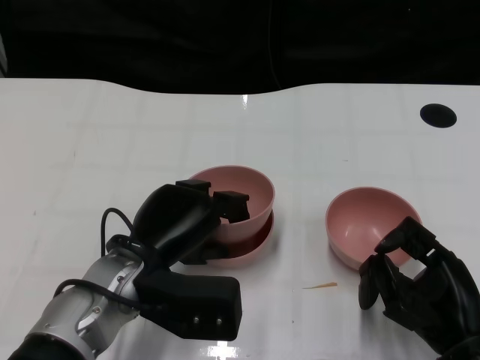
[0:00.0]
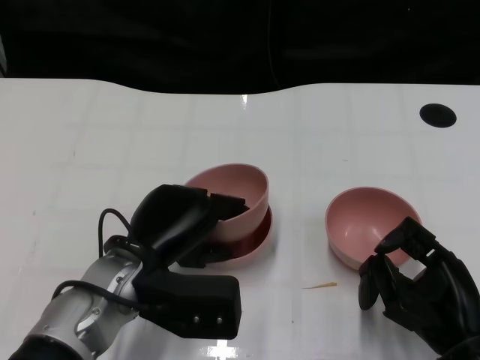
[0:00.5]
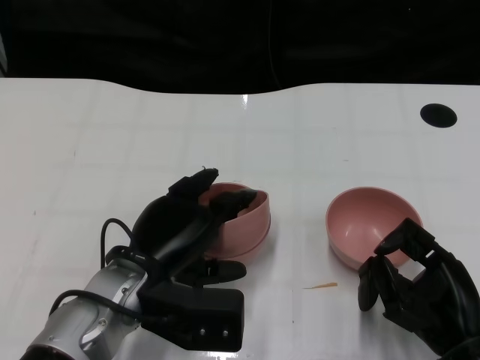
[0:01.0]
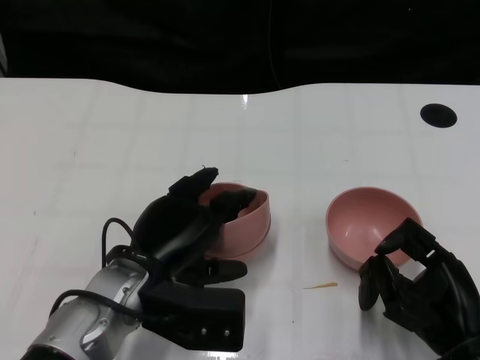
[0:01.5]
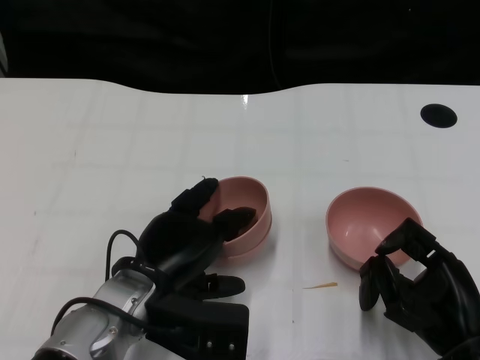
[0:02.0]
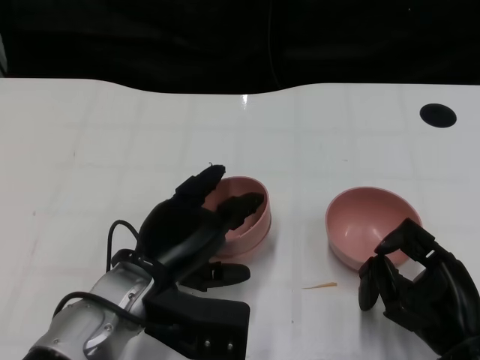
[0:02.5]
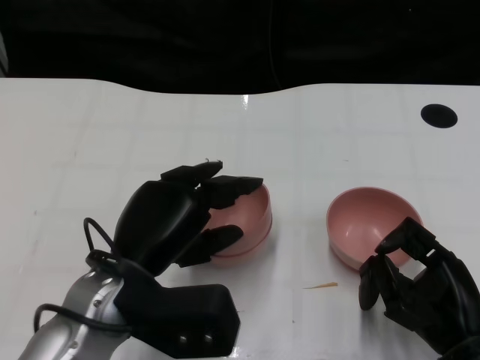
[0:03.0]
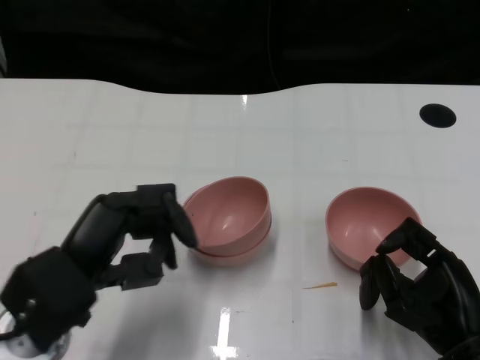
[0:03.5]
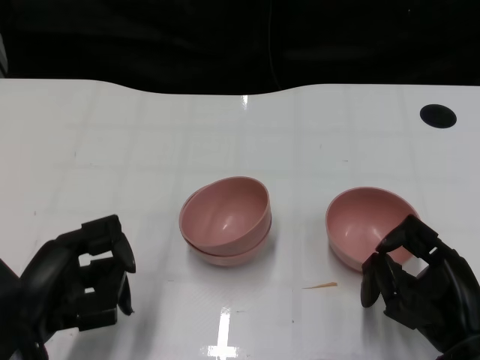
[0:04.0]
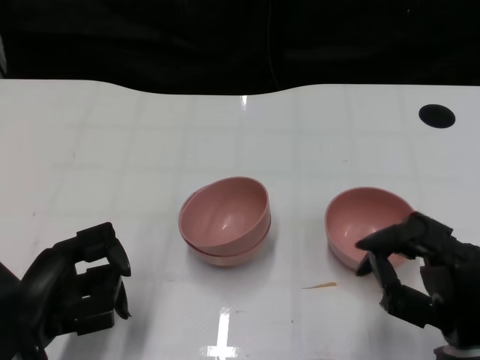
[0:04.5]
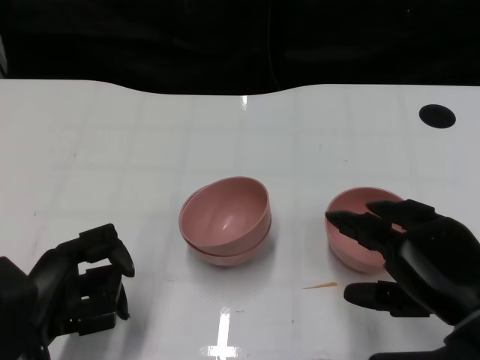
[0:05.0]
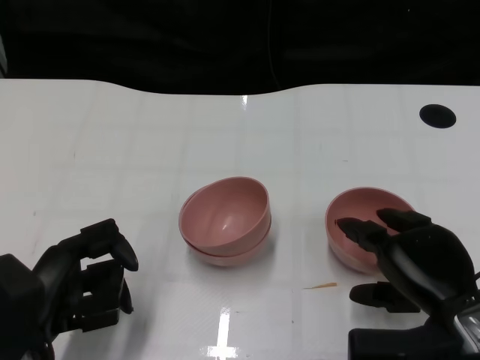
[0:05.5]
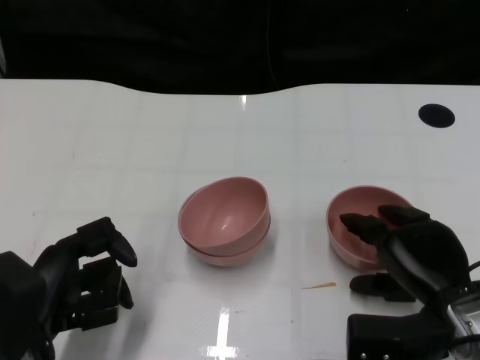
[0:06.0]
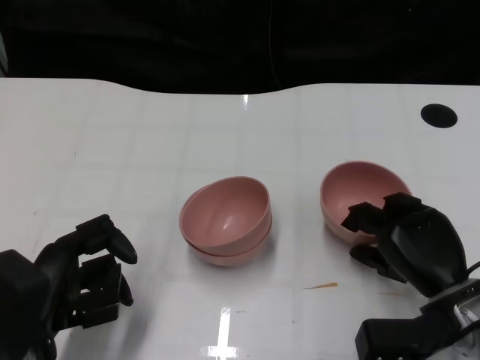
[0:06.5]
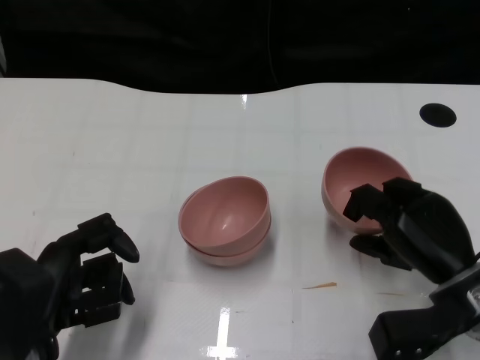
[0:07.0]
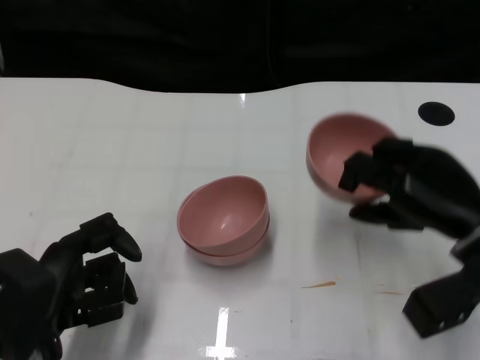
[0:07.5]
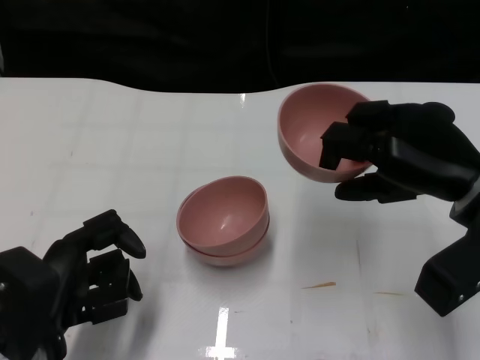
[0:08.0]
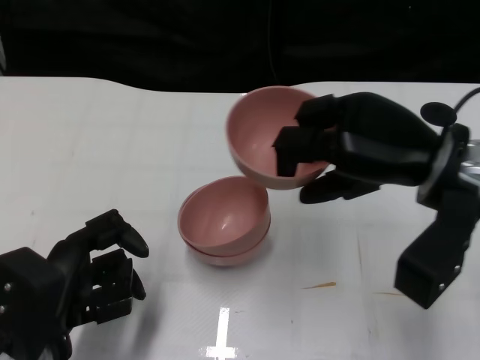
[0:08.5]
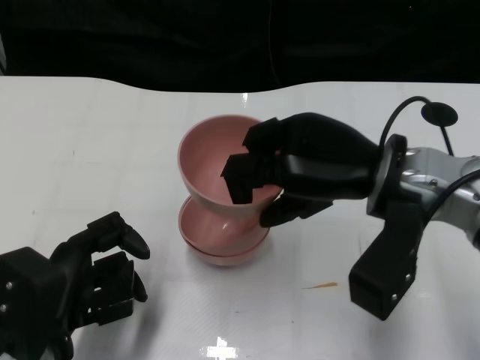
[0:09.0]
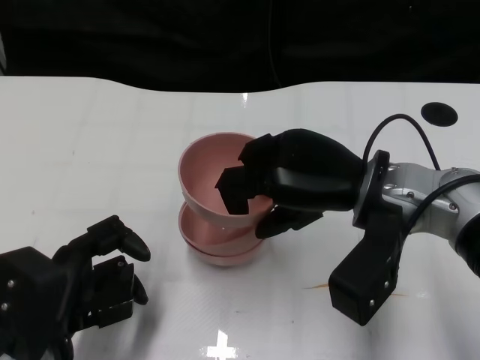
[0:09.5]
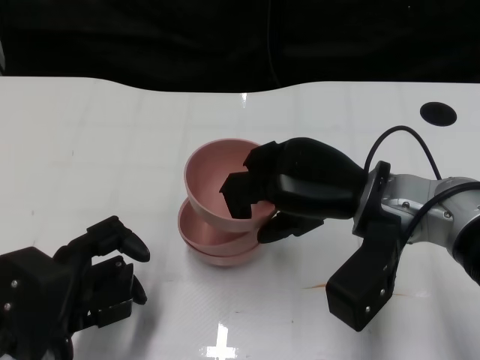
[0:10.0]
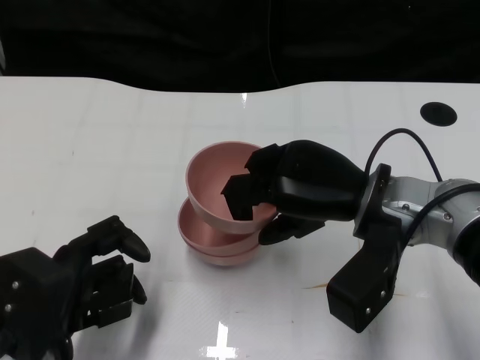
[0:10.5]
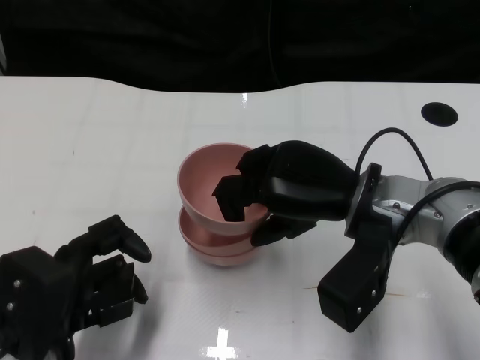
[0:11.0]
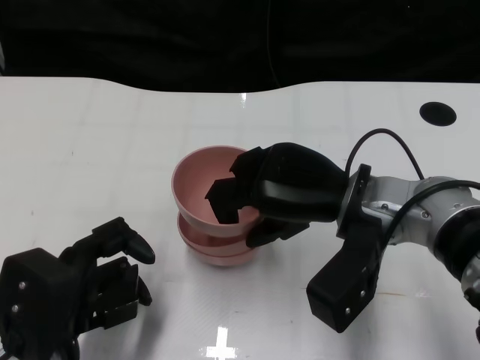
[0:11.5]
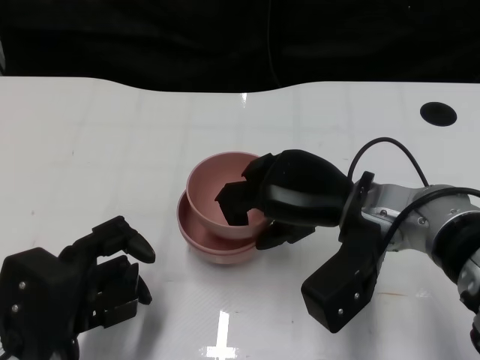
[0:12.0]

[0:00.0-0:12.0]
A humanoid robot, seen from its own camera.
Task of the whole recording: Pick up the bowl on one side of the table and place it on top of the middle bowl, then pick up the bowl on the other side of the table and place it on top of the middle bowls.
Step, 0:00.0 to 0:02.5: Place the bowl on the left onto the bowl in the middle with left gripper.
Step, 0:03.0 to 0:07.0: Grasp the bowl on the right with the right gripper.
0:00.0 to 0:02.0: The hands move only a little.
0:02.0 to 0:04.0: The left hand is displaced to the left and backward by roughly 15 cm.
0:04.0 to 0:06.0: The right hand moves roughly 10 cm upward and comes back.
0:06.0 to 0:08.0: The right hand moves upward and forward, about 10 cm.
0:08.0 to 0:10.0: The right hand travels to the left by approximately 10 cm.
0:10.0 to 0:12.0: The hands move only a little.

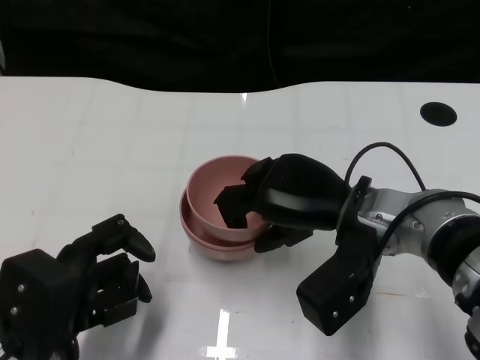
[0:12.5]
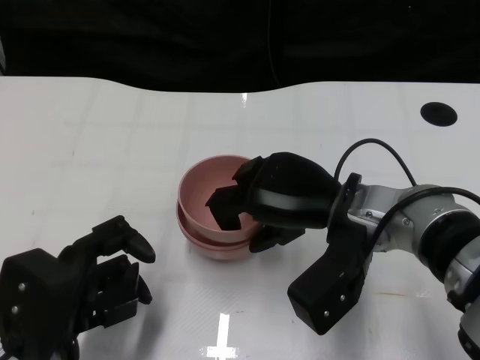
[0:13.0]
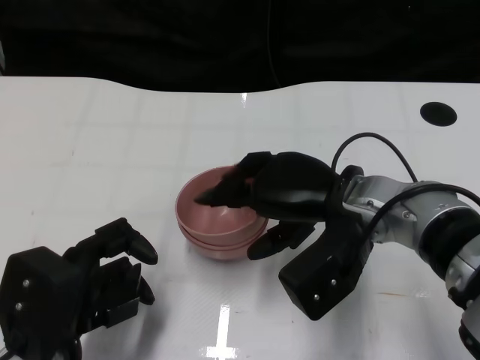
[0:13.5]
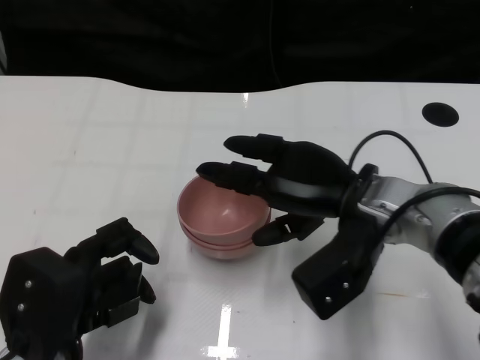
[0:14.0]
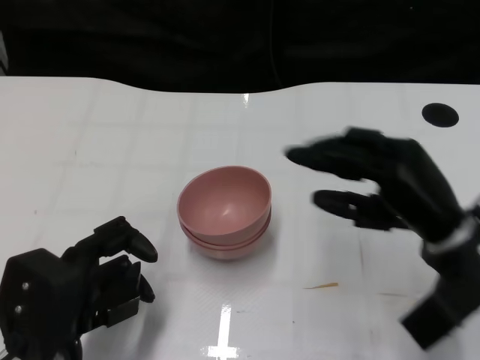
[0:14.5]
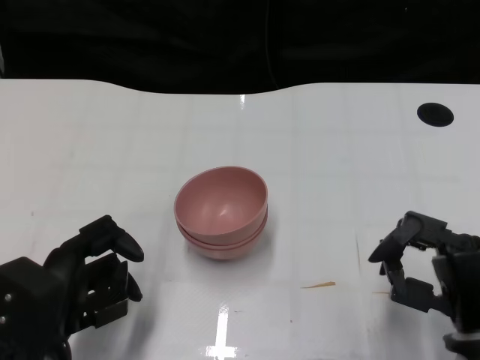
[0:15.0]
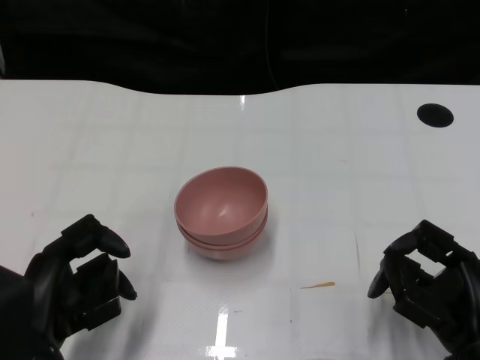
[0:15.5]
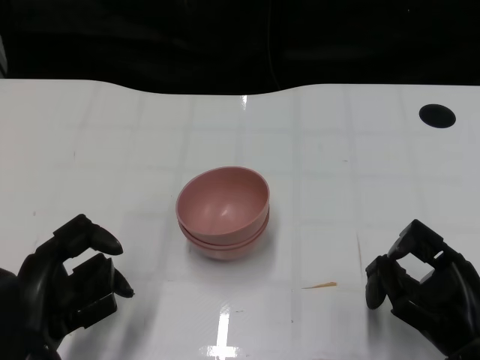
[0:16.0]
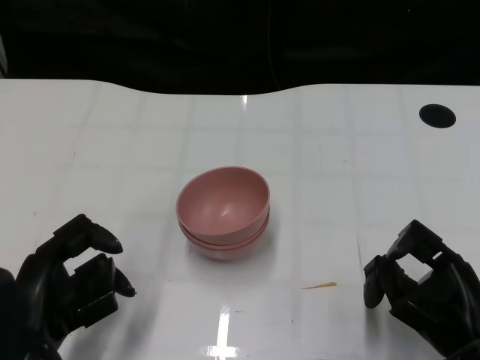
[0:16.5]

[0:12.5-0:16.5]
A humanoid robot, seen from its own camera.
Task of the whole recording: Pick up the bowl on one side of the table and place it on top of the middle bowl, then pick up the bowl on the other side of the table and place it on top of the middle bowls.
0:12.5 to 0:14.5: The right hand goes approximately 10 cm to the right.
0:14.5 to 0:16.5: The right hand goes roughly 10 cm backward and downward.

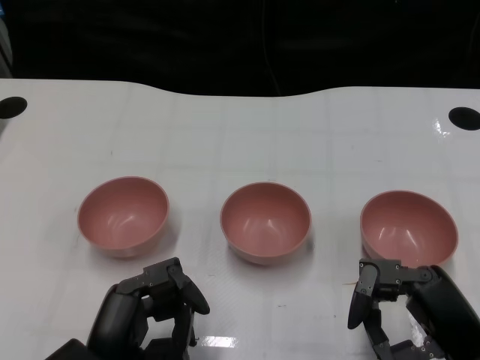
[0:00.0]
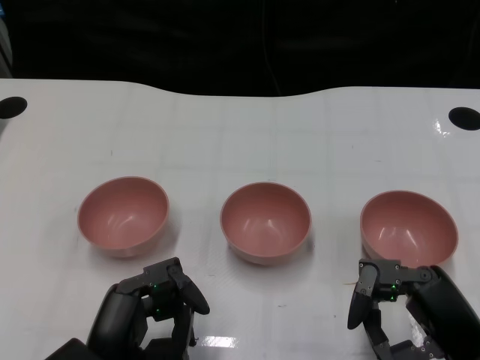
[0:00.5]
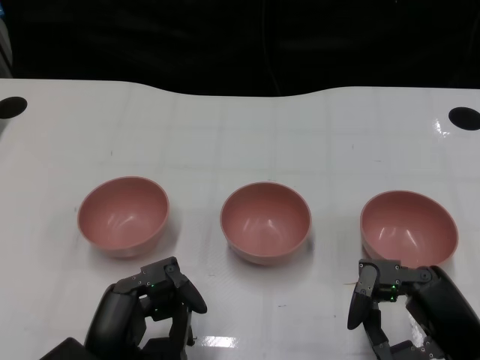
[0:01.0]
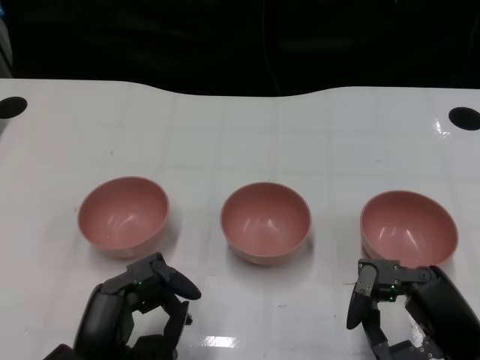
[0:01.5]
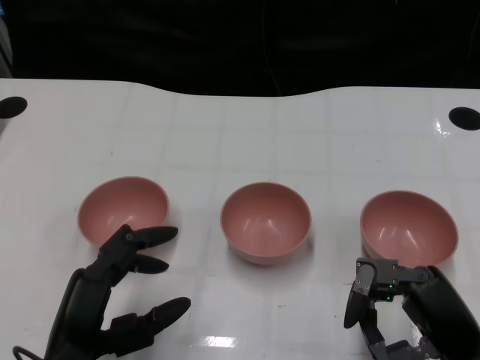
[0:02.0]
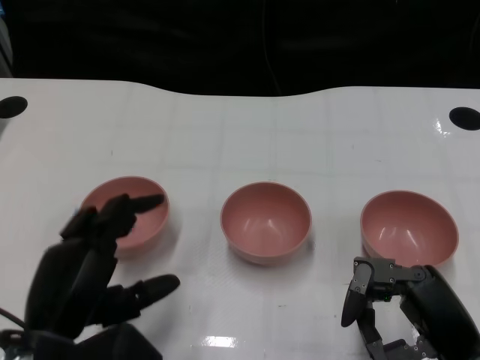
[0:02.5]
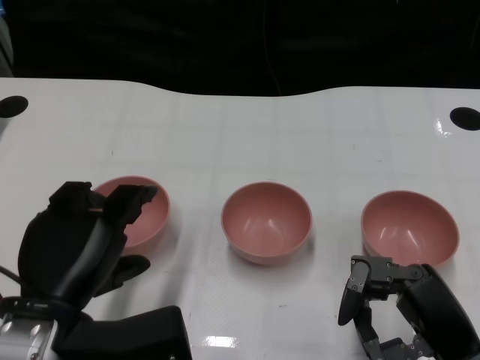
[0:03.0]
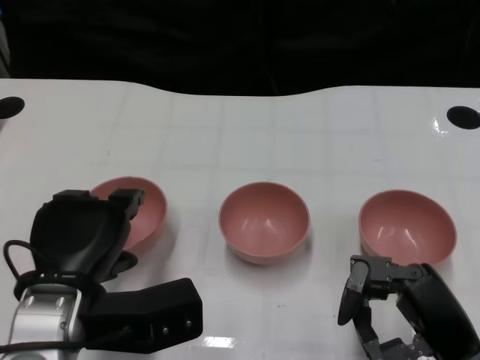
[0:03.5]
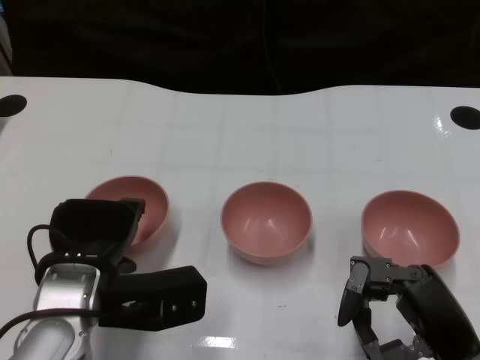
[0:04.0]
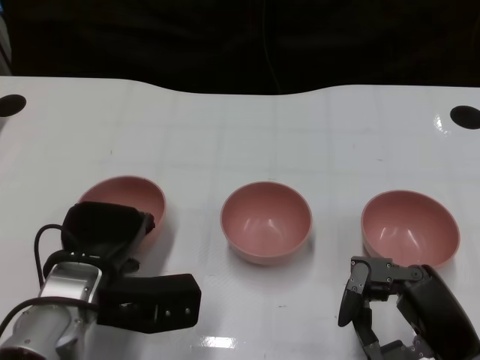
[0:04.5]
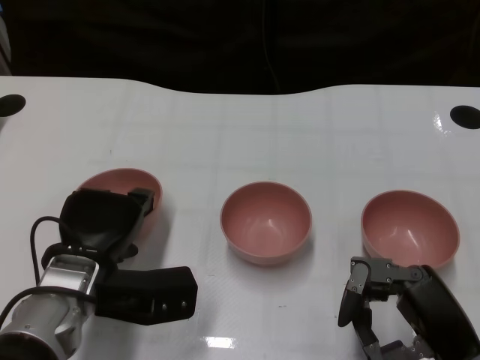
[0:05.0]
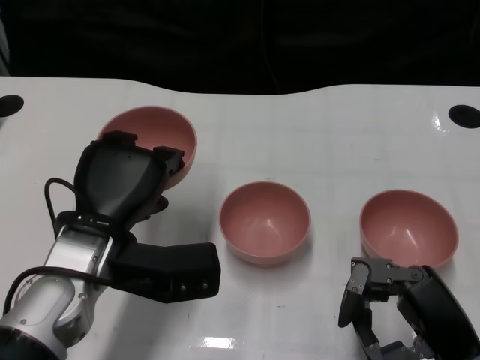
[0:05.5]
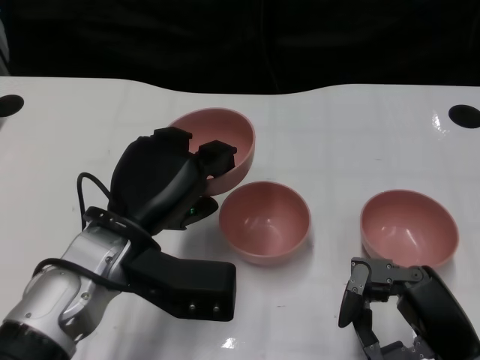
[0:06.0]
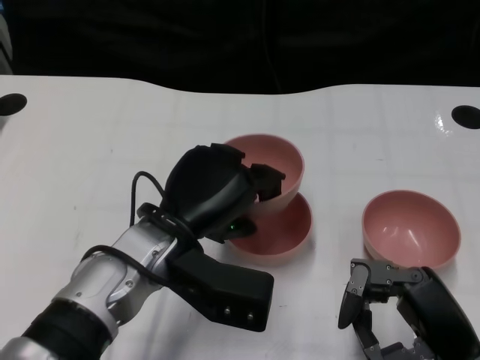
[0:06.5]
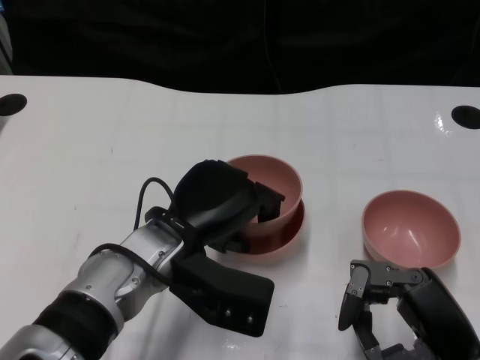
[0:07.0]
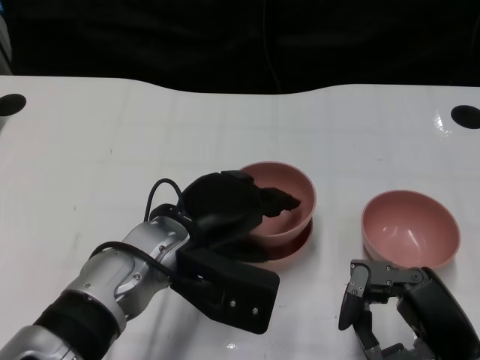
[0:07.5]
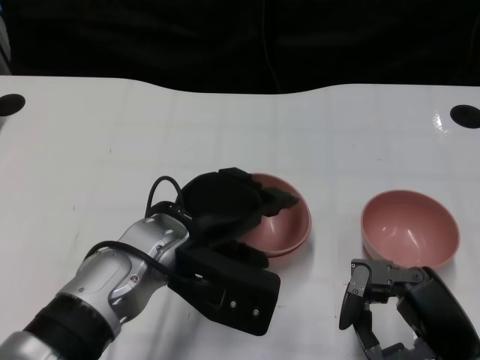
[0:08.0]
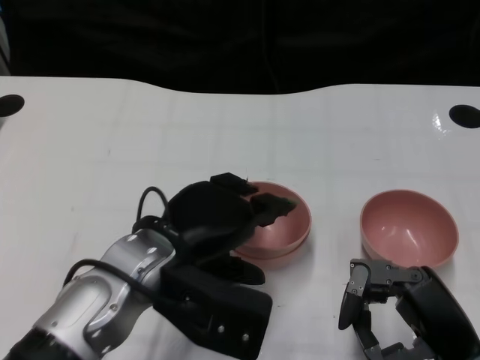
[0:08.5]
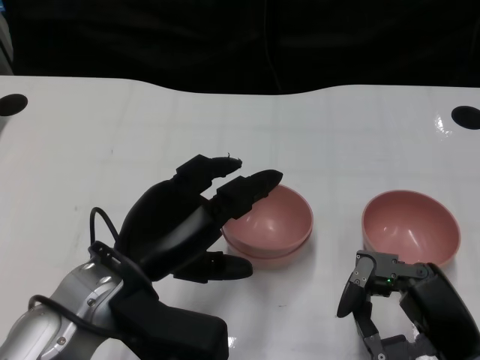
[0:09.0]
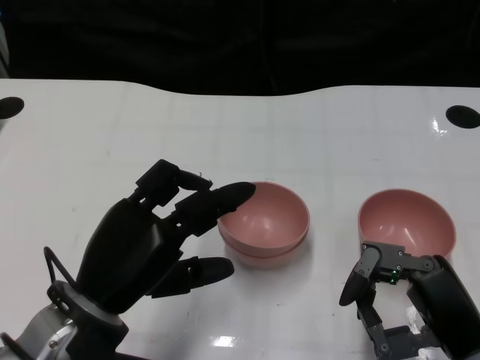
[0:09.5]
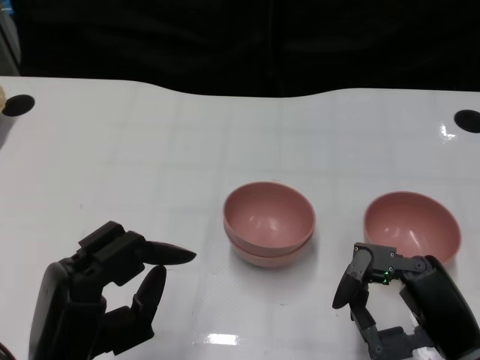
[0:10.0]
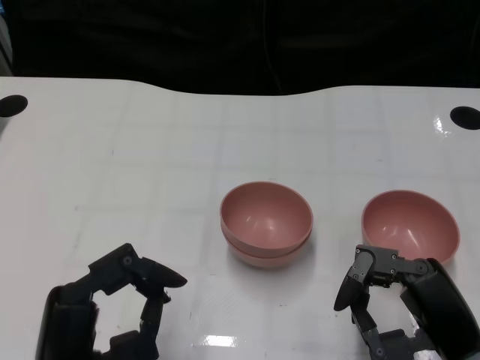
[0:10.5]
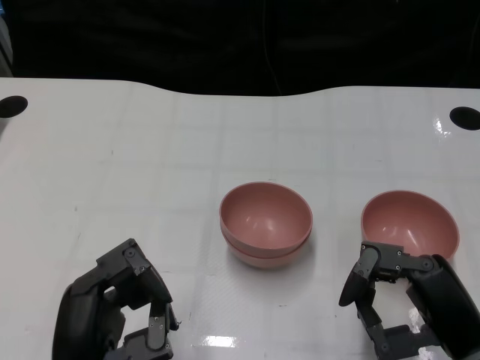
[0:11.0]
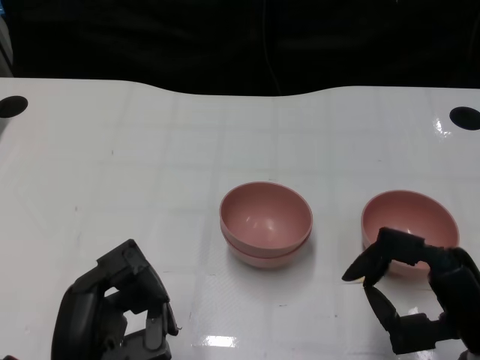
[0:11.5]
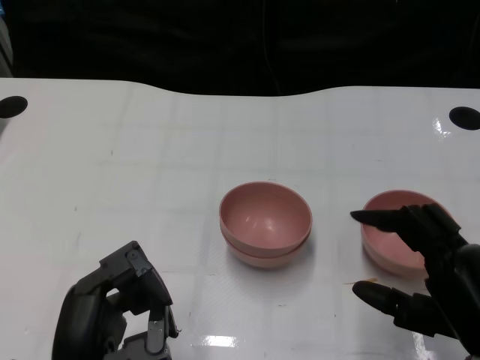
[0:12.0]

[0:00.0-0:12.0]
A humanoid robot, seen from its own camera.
Task of the whole recording: Pick up the bowl on one side of the table and place it on top of the middle bowl, then pick up the bowl on the other side of the table and place it on top of the middle bowls.
Step, 0:01.5 to 0:05.0: Grasp the bowl on the left with the left gripper.
Step, 0:05.5 to 0:08.0: Place the bowl on the left onto the bowl in the middle with left gripper.
0:02.0 to 0:04.0: The left hand travels forward by about 10 cm.
0:04.0 to 0:06.0: The left hand changes place by approximately 5 cm.
0:08.0 to 0:10.0: The left hand heads backward and to the left, covering some 15 cm.
